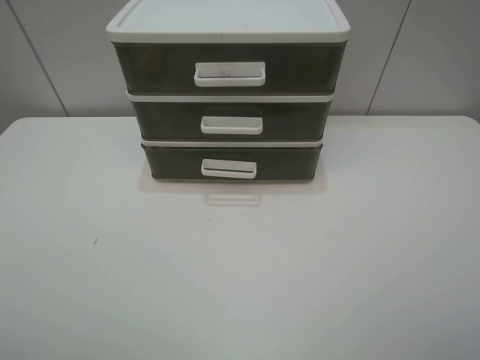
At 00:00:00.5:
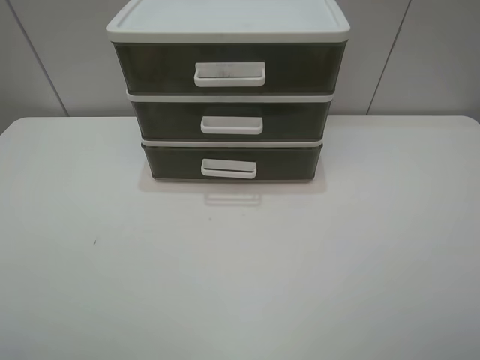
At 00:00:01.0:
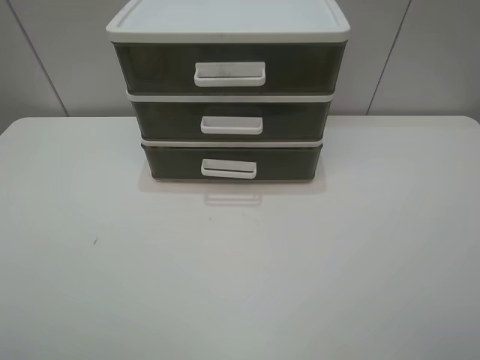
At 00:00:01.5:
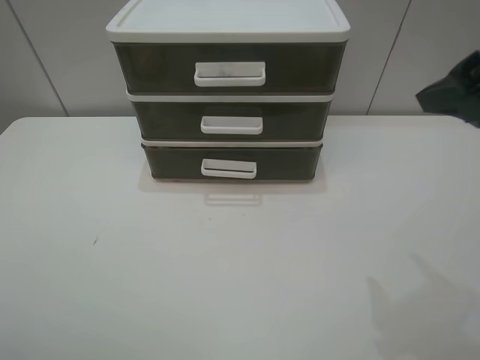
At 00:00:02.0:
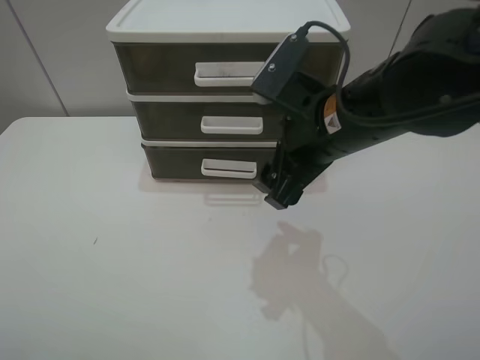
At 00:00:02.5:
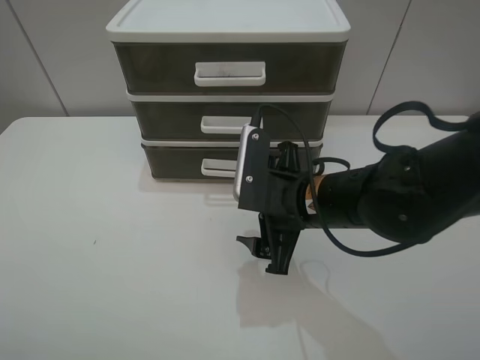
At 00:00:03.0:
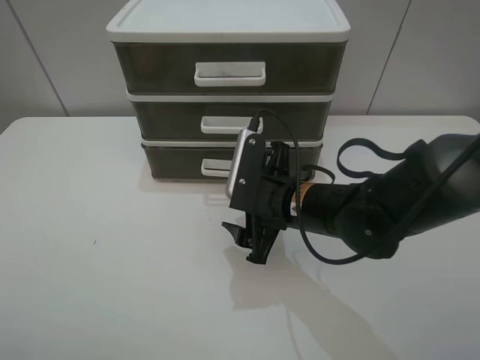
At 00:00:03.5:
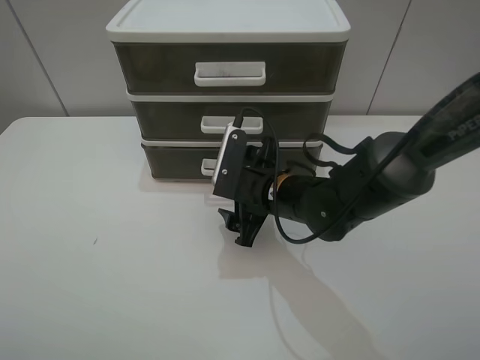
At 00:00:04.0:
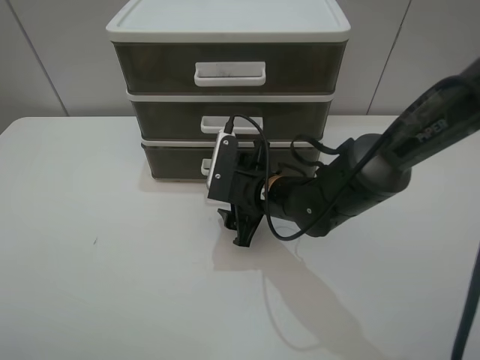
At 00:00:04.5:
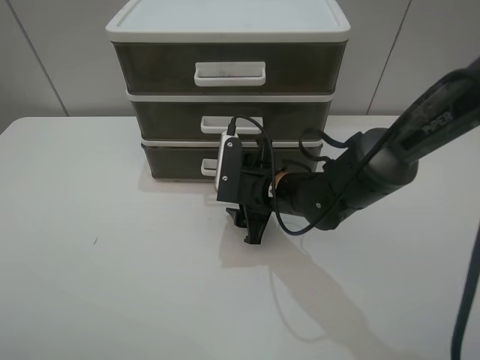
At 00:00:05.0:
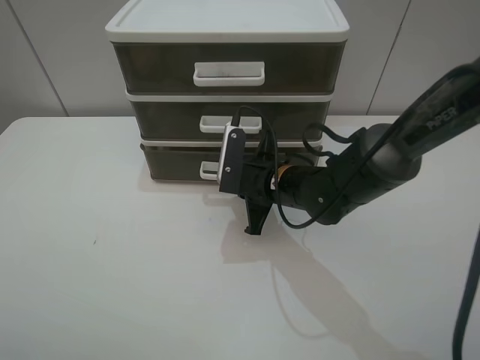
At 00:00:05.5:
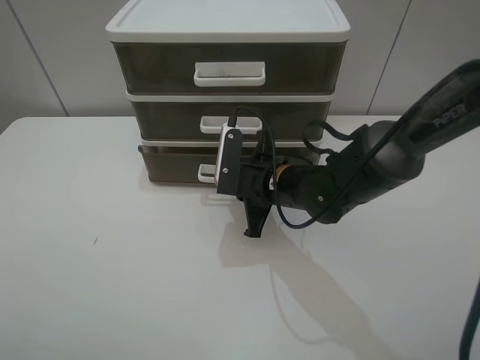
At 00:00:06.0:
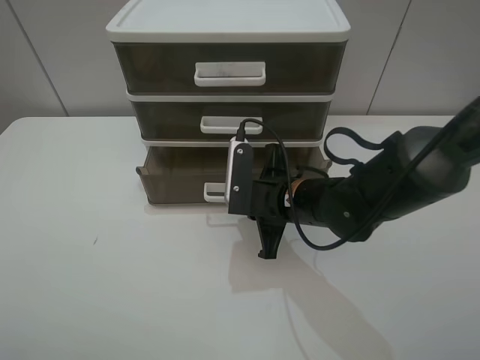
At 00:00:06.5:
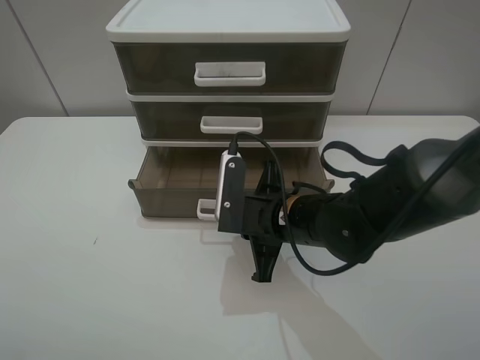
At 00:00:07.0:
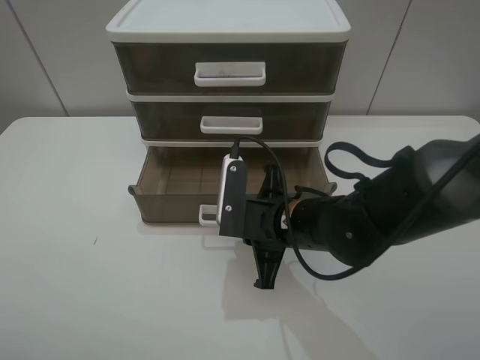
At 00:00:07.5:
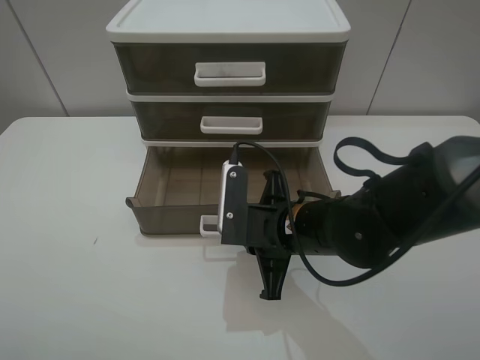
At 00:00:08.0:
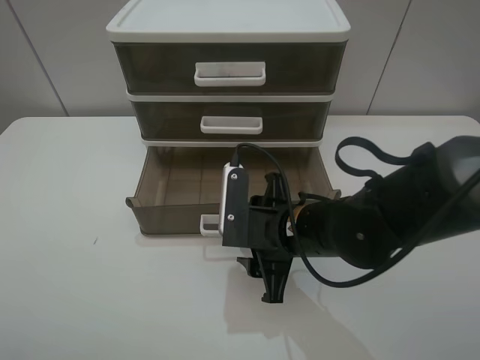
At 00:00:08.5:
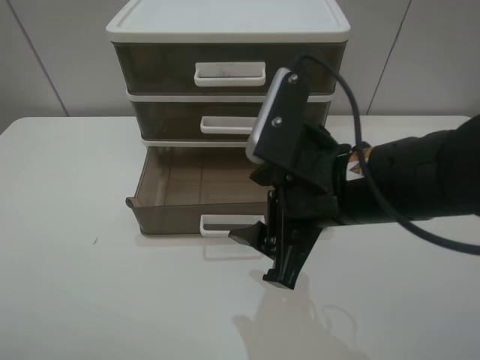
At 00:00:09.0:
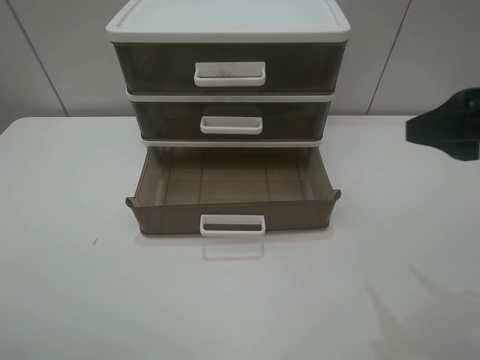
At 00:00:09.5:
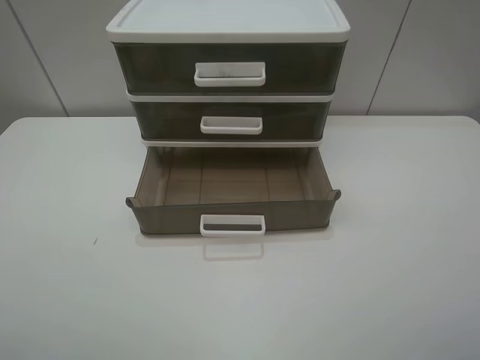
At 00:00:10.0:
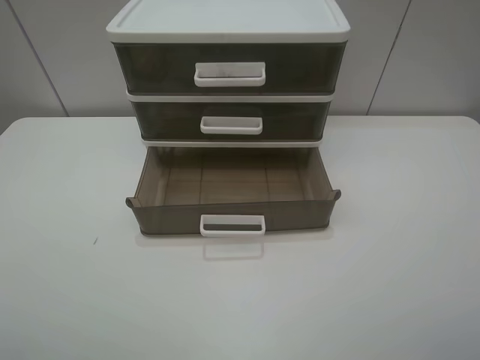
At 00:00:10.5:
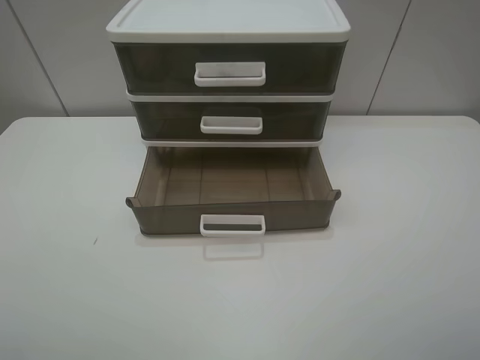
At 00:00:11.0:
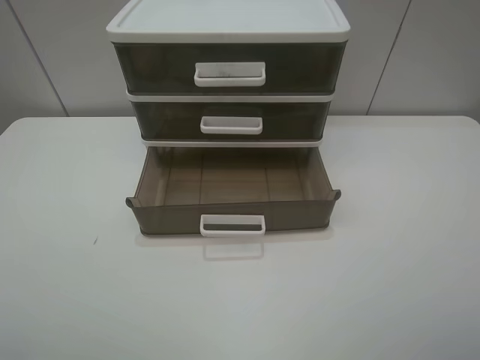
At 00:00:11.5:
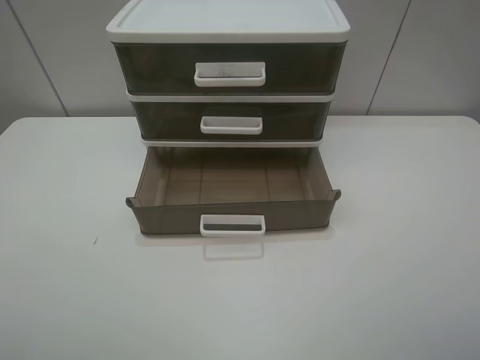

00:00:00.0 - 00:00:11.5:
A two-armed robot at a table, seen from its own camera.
Task of the whole recording: open the bottom drawer.
Step, 00:00:00.0 - 00:00:05.0: Grab the bottom drawer with the right gripper.
Step, 00:00:05.5 - 00:00:08.0: Pull open the drawer with the right gripper.
00:00:00.0 - 00:00:02.0: The right gripper shifts approximately 30 cm forward and to the left.
00:00:02.0 - 00:00:04.0: The right gripper moves downward, approximately 15 cm.
00:00:04.0 - 00:00:06.0: The right gripper closes up.
00:00:06.0 - 00:00:07.5: The grippers move only a little.
00:00:07.5 - 00:00:09.5: The right gripper moves to the right, upward and backward, some 35 cm, and opens up.
